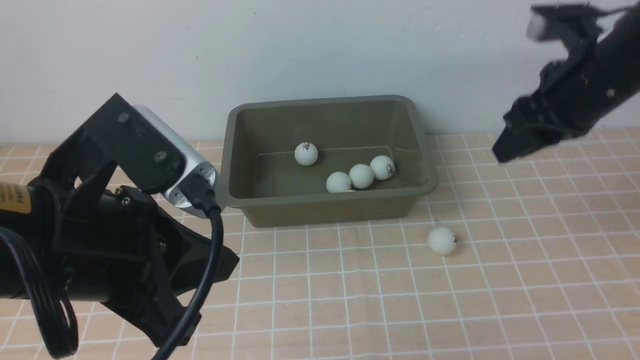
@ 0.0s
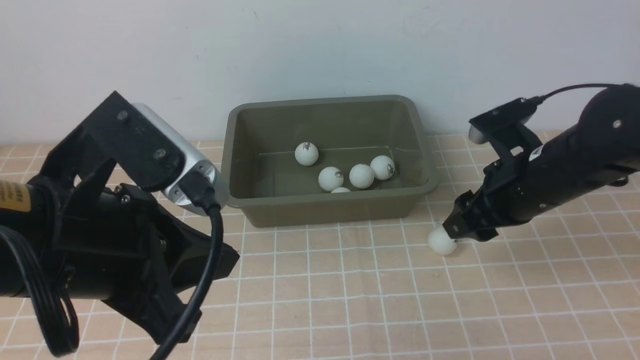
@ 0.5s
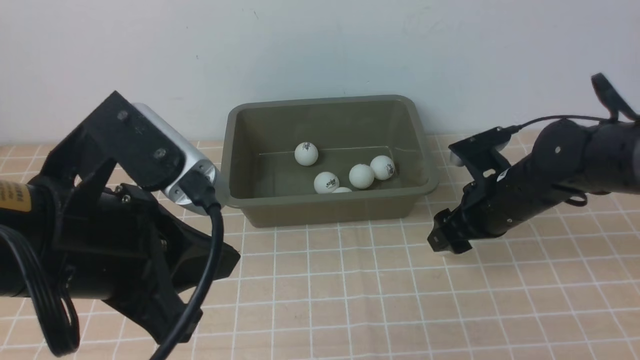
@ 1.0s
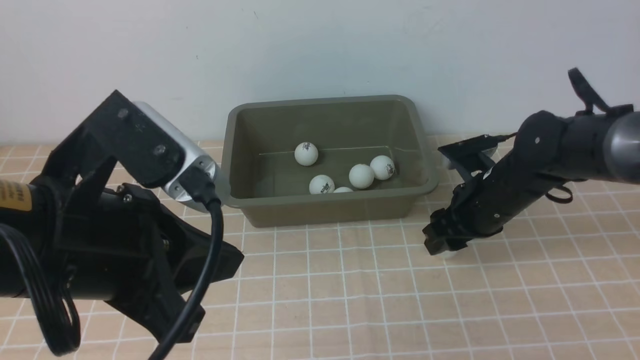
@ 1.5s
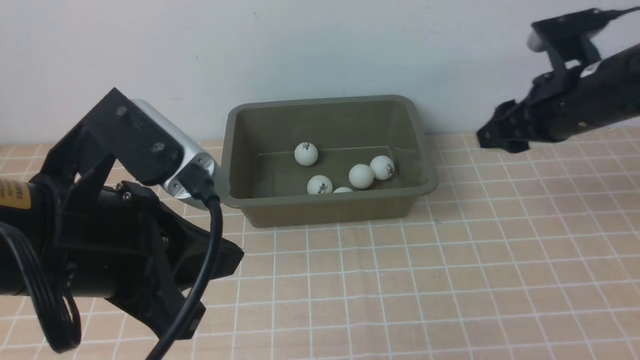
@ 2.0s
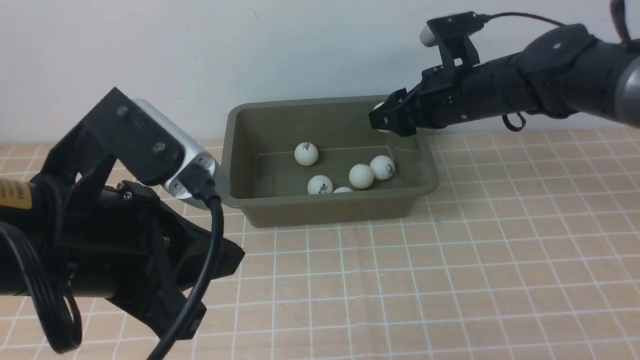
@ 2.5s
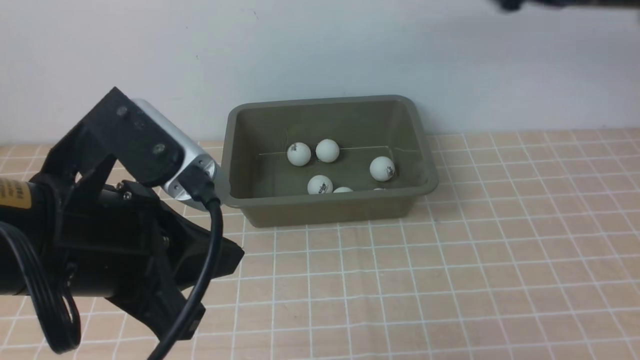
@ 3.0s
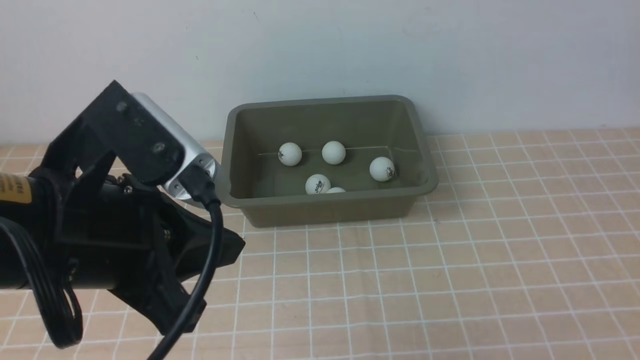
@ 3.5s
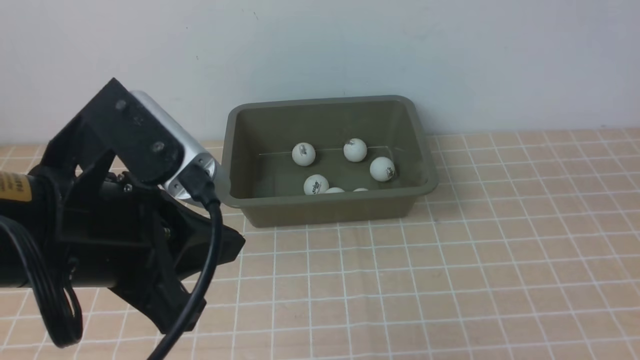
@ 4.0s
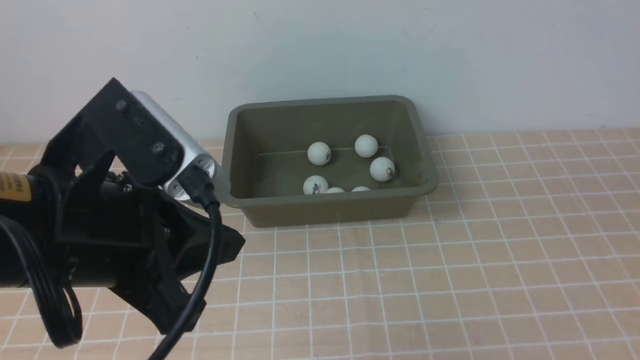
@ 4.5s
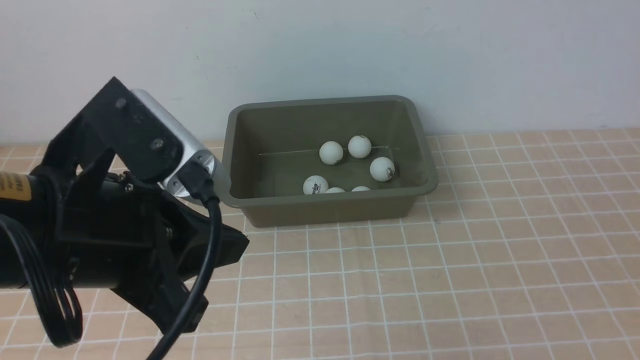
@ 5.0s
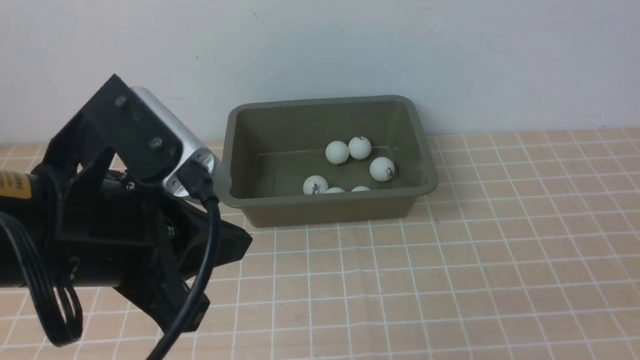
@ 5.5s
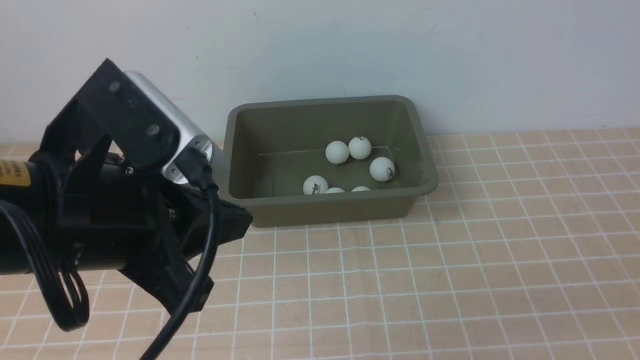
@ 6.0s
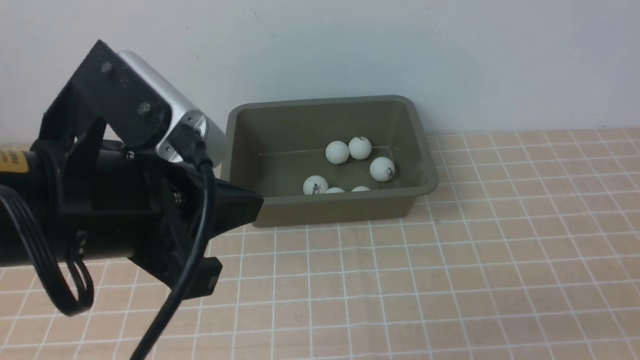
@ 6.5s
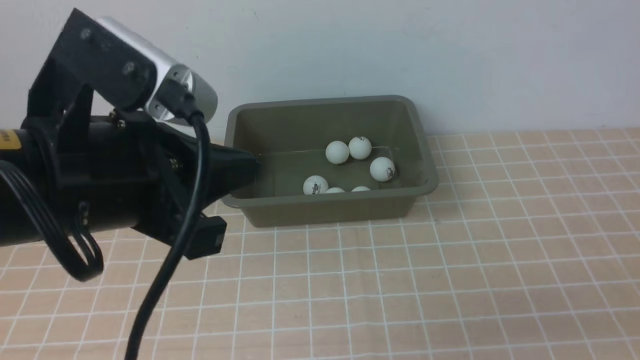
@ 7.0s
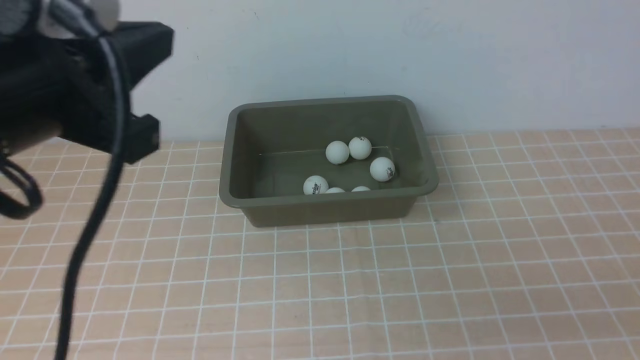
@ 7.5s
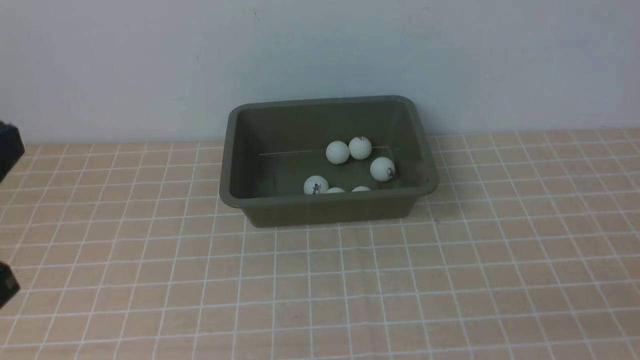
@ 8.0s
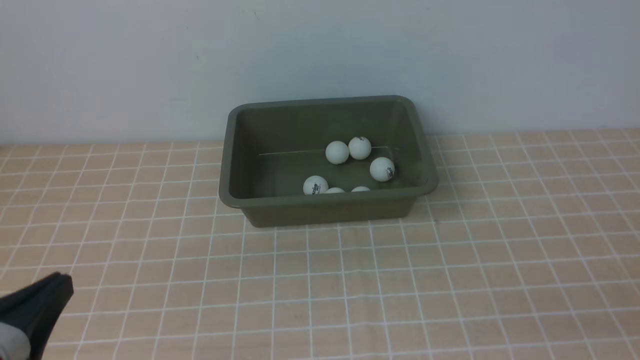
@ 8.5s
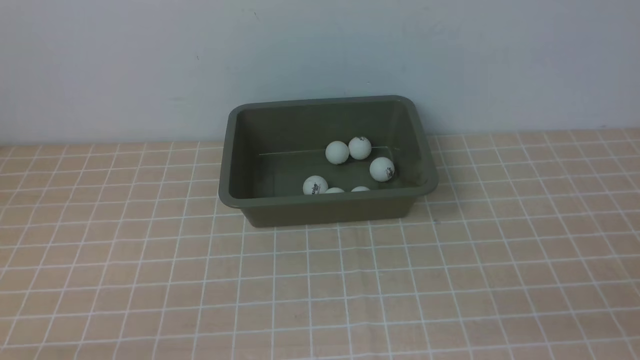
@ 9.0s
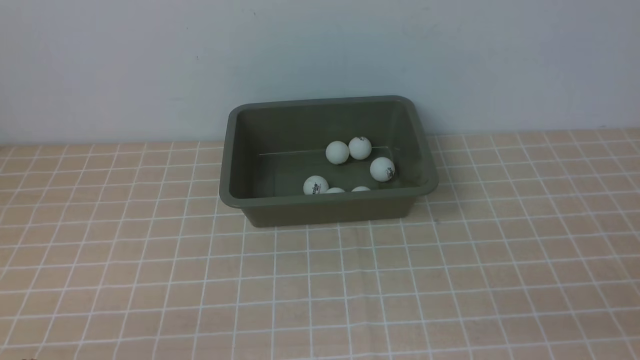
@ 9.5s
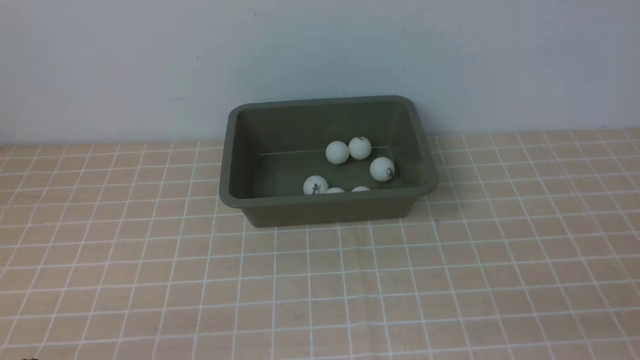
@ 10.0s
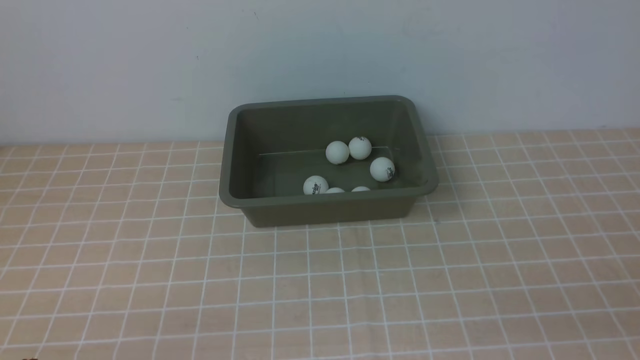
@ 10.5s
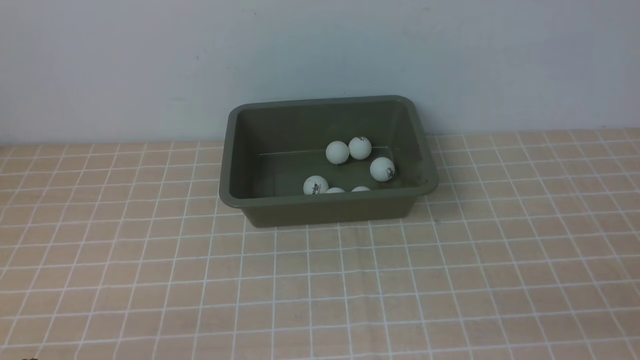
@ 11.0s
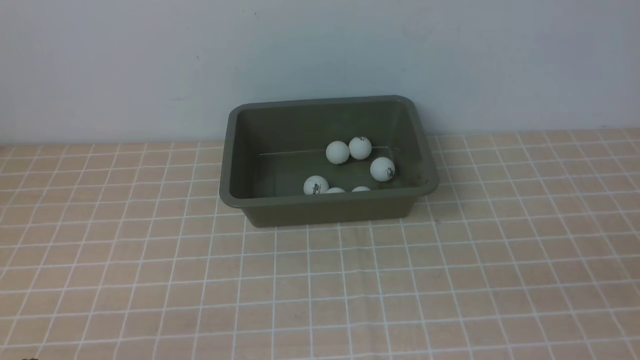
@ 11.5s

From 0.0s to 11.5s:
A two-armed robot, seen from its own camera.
Step, from 0.0s to 2.0s: use the right arm to clamp the table tennis ball closest to it.
From 0.0s to 2.0s: The right gripper moves roughly 15 cm downward and comes back.
From 2.0s to 4.0s: The right gripper heads backward, to the right and upward, covering roughly 25 cm, and closes its fingers.
From 4.0s to 6.0s: The right gripper moves downward and backward, some 15 cm.
From 6.0s to 7.5s: The left gripper changes place by some 5 cm.
From 7.5s to 9.5s: The left gripper travels downward and backward by approximately 25 cm.

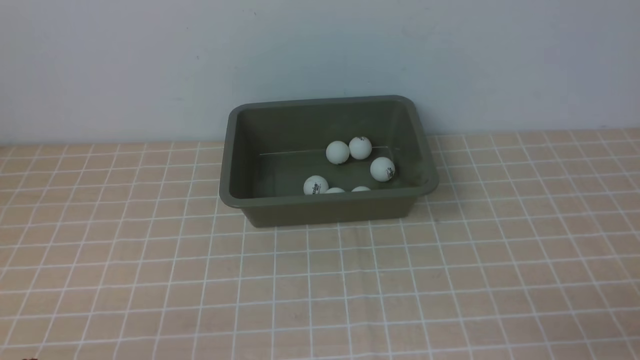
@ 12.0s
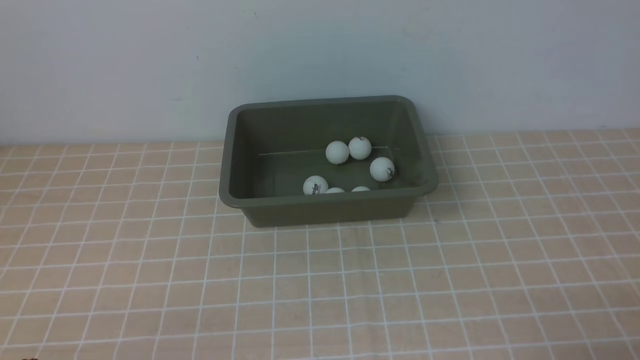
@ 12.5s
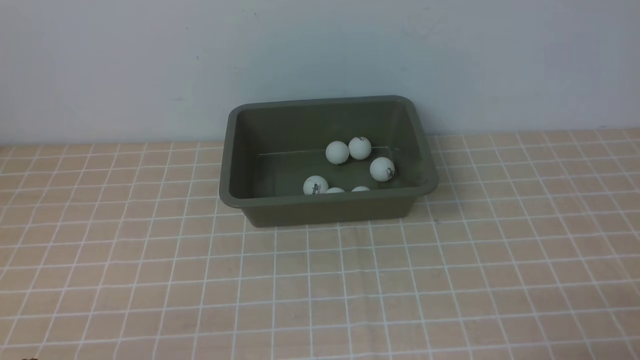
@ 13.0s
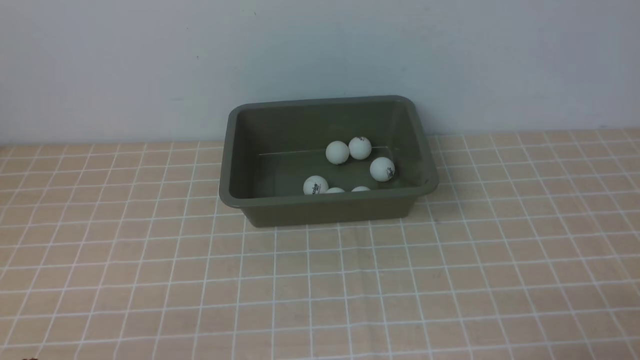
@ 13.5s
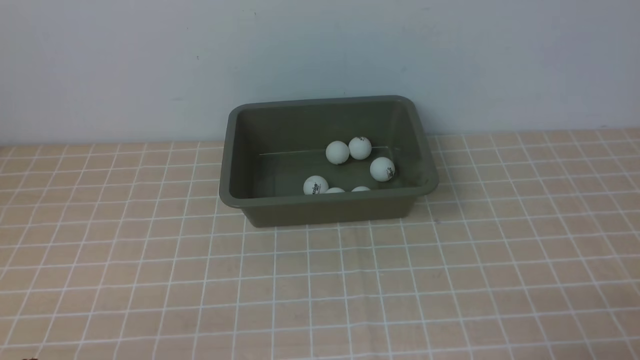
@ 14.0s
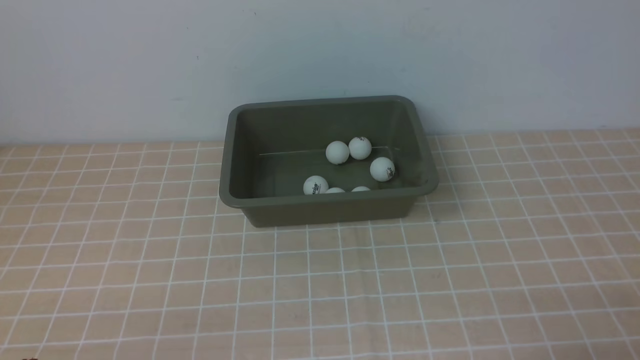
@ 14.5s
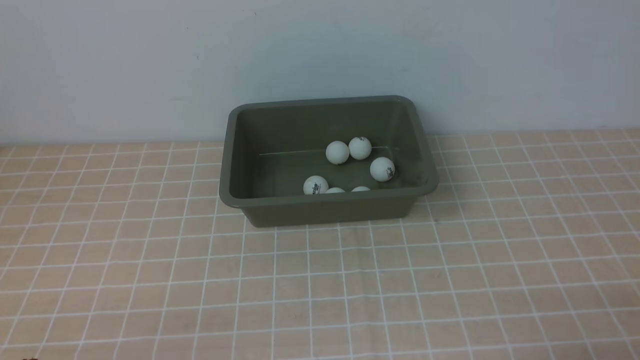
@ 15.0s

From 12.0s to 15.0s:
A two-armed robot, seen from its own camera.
From 13.5s to 15.0s: Both grippers stay put.

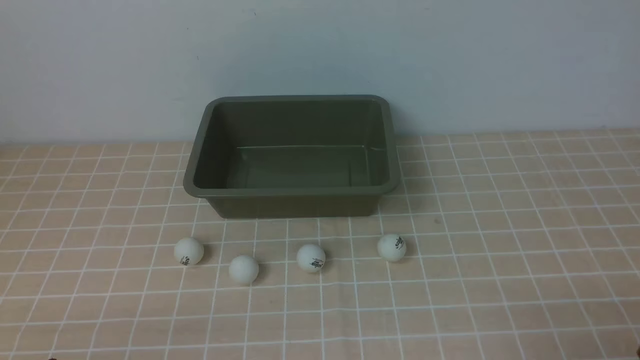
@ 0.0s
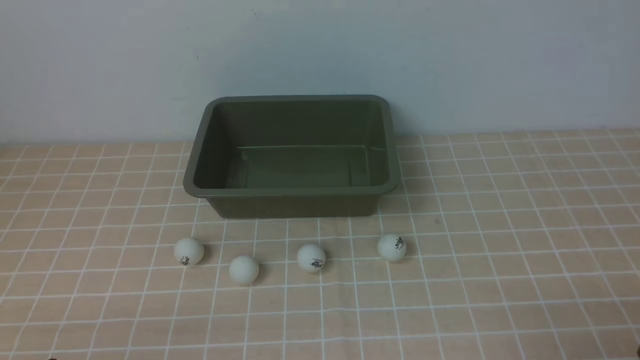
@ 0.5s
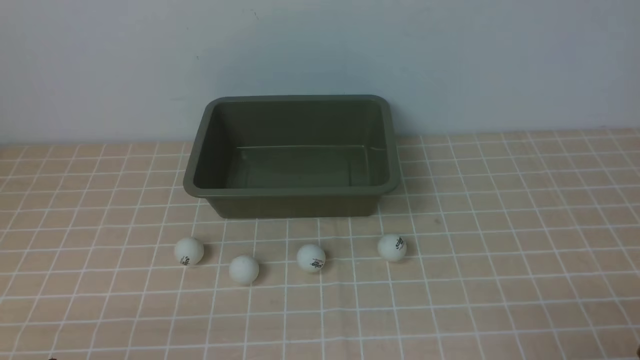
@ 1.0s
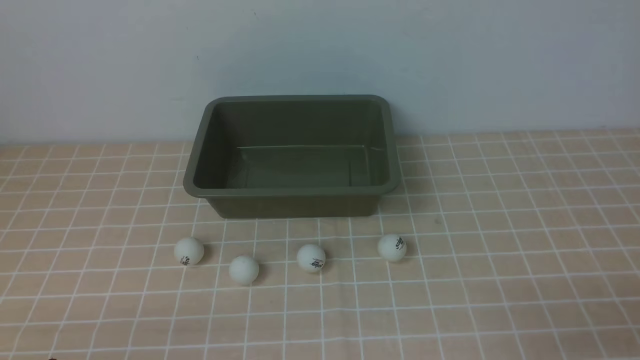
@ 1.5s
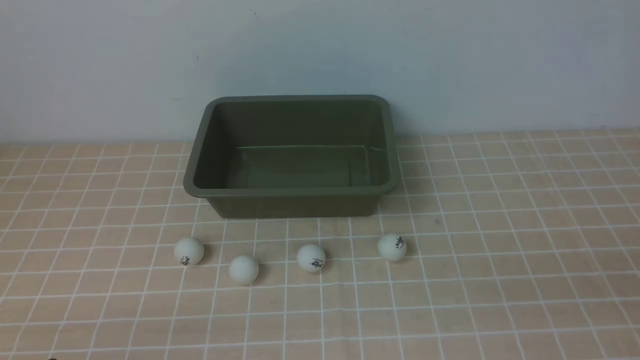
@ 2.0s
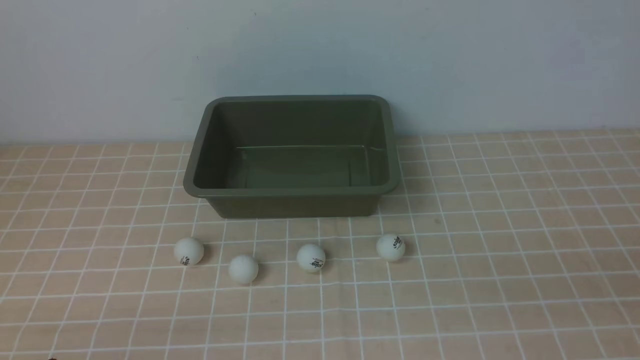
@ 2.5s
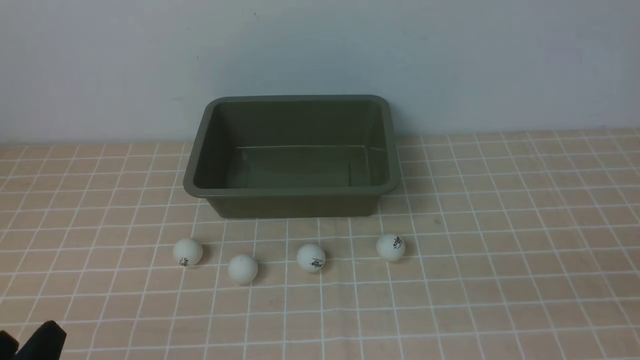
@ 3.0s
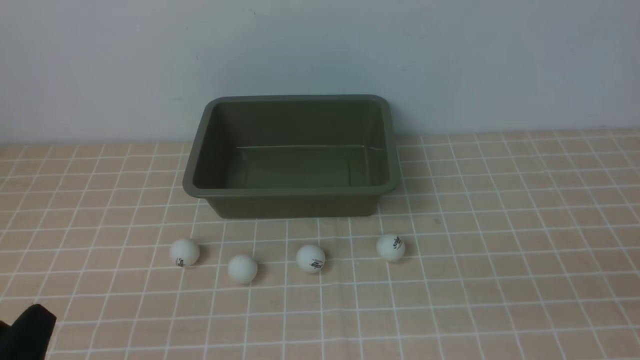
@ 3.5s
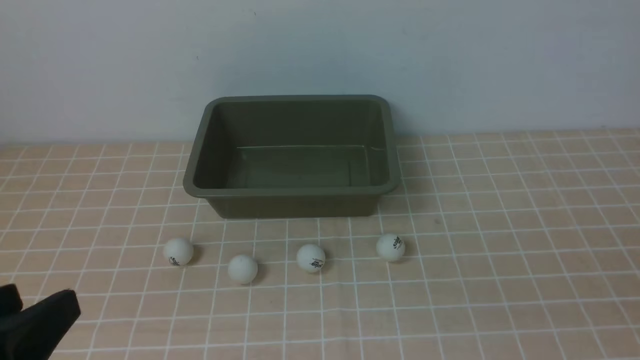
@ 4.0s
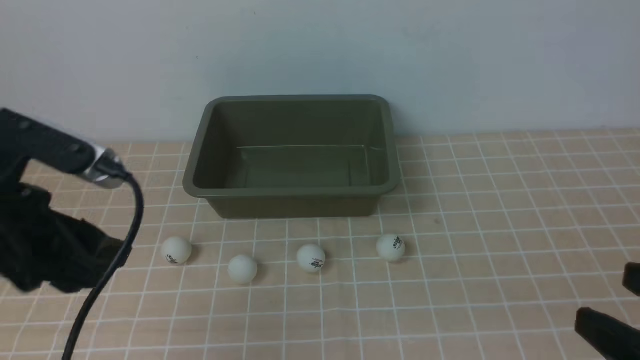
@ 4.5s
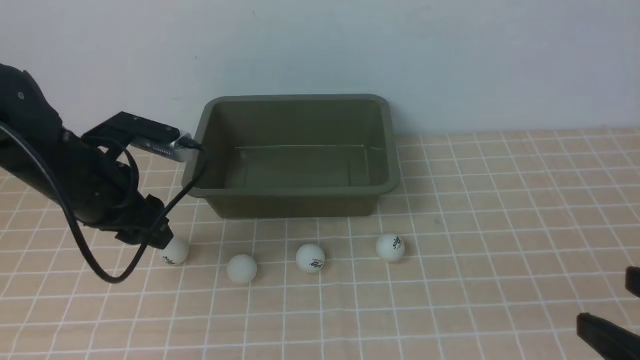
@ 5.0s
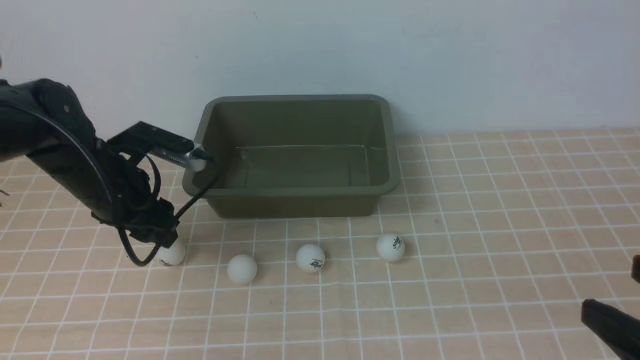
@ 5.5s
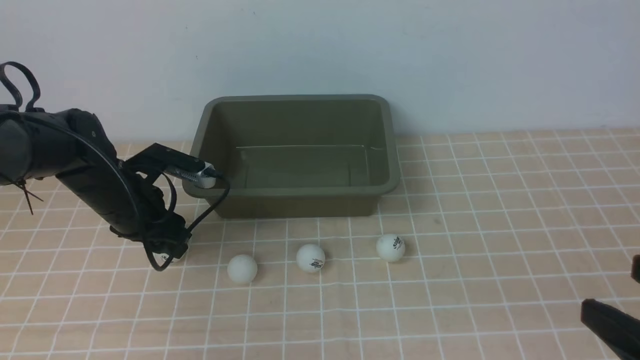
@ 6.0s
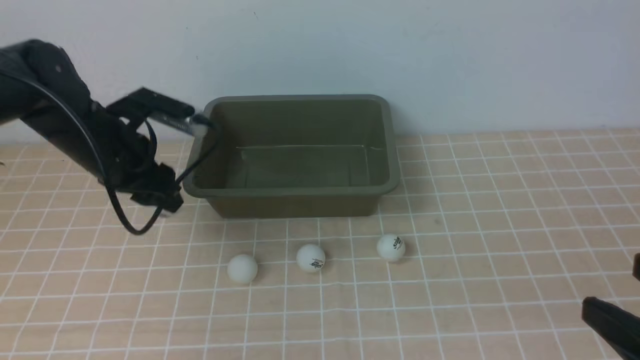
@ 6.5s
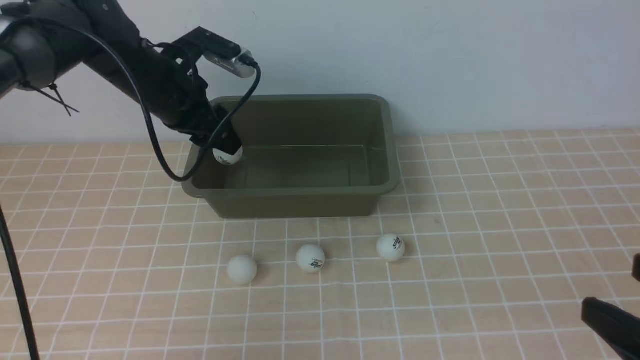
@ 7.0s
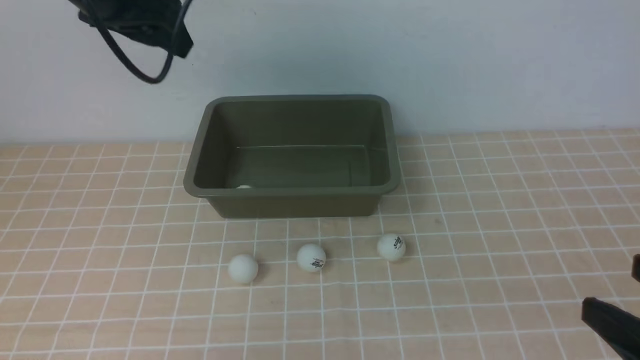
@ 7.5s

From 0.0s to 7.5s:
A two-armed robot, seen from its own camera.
Step, from 0.0s to 6.0s: use the left arm to clamp the table tennis ball closest to it.
Step, from 6.5s to 7.0s: use the left arm to put the table tennis ball into the box.
From 2.0s to 4.0s: The left gripper heads upward, covering approximately 15 cm.
From 4.0s to 5.5s: The left gripper shifts roughly 30 cm forward.
From 5.5s to 7.5s: The left gripper shifts approximately 20 cm upward, and closes, then opens again.
